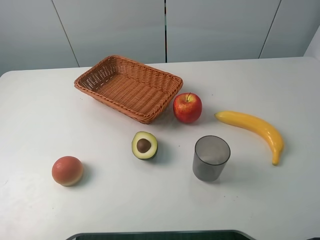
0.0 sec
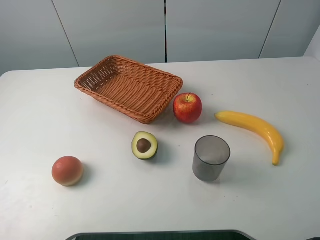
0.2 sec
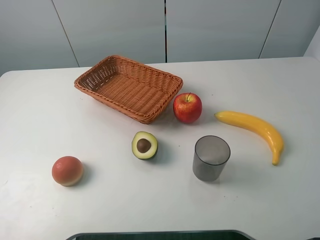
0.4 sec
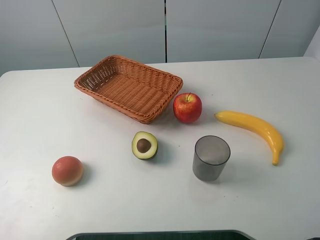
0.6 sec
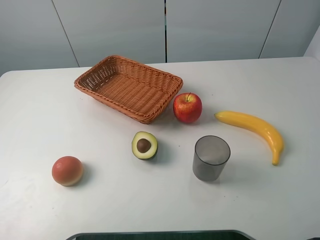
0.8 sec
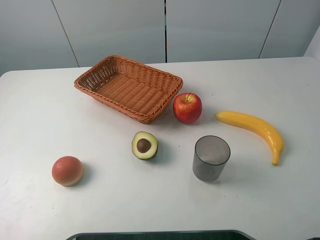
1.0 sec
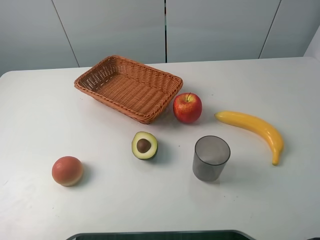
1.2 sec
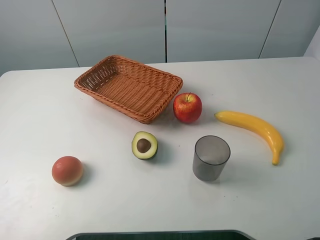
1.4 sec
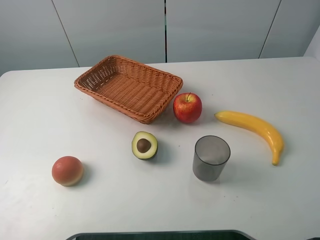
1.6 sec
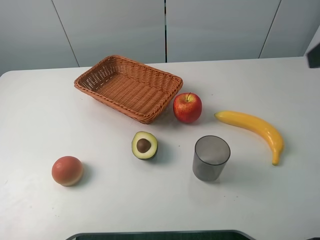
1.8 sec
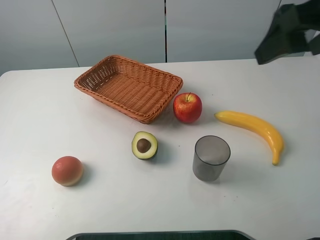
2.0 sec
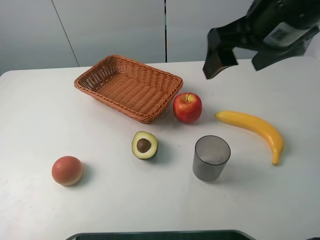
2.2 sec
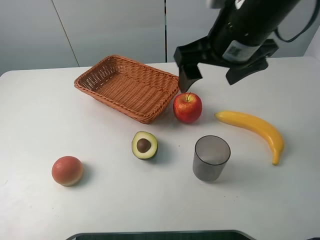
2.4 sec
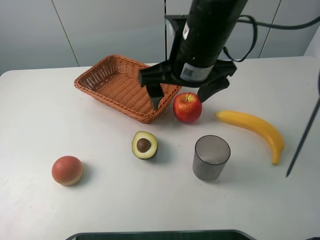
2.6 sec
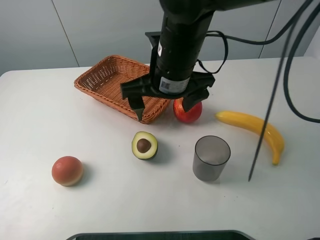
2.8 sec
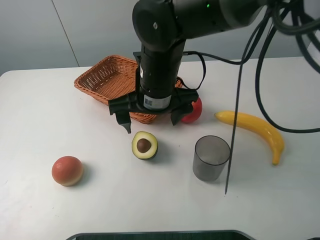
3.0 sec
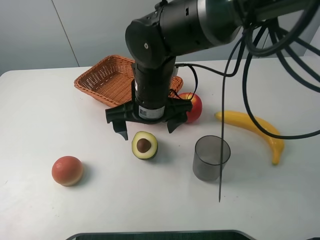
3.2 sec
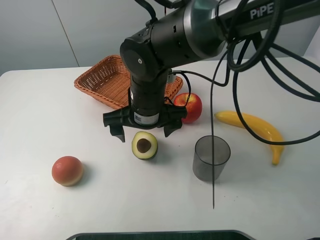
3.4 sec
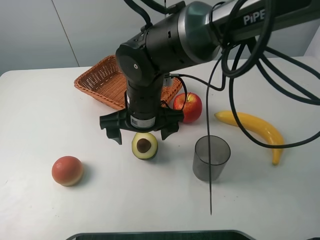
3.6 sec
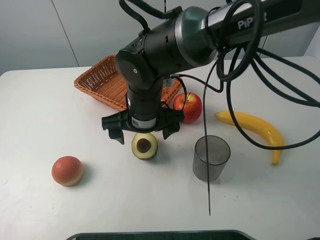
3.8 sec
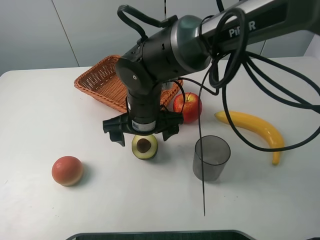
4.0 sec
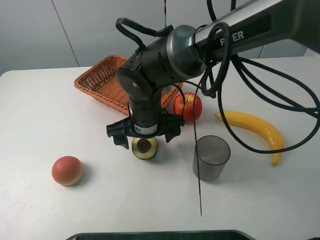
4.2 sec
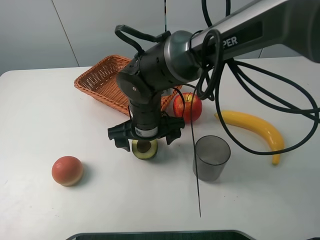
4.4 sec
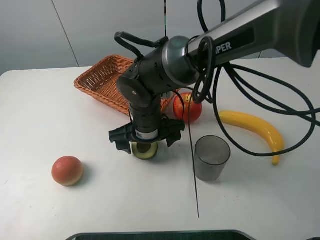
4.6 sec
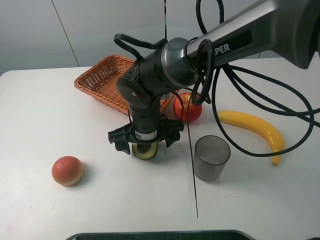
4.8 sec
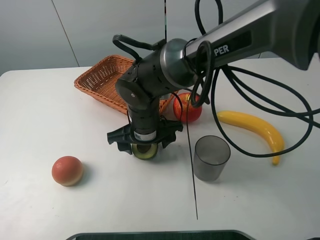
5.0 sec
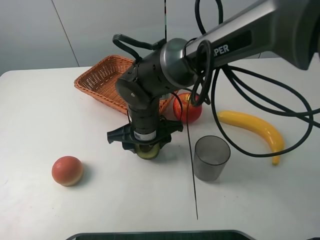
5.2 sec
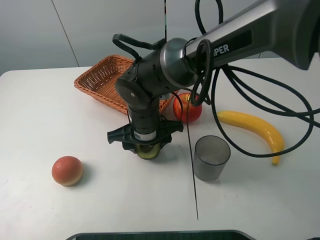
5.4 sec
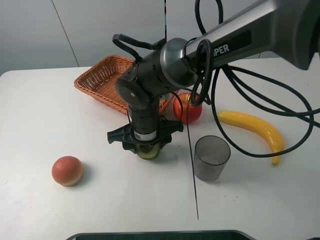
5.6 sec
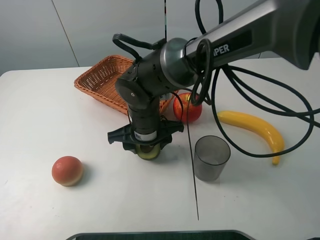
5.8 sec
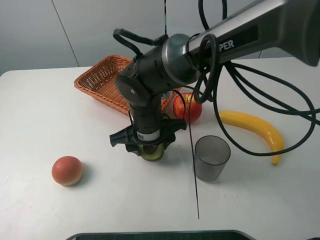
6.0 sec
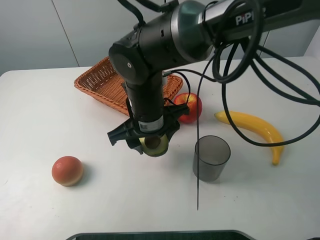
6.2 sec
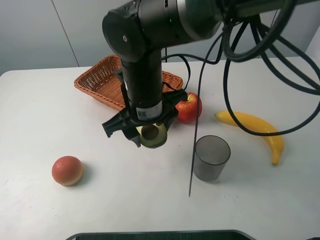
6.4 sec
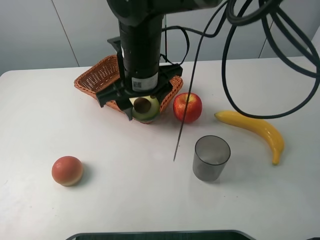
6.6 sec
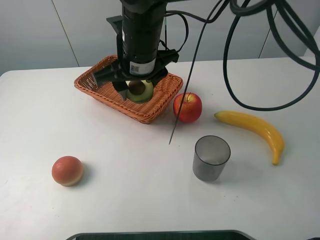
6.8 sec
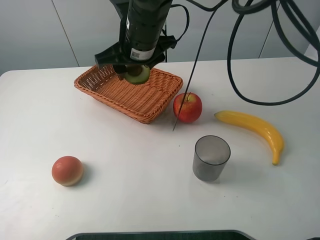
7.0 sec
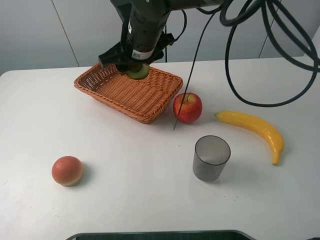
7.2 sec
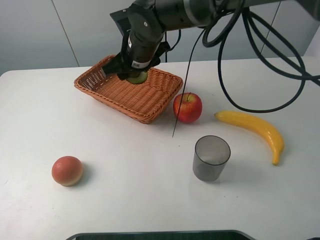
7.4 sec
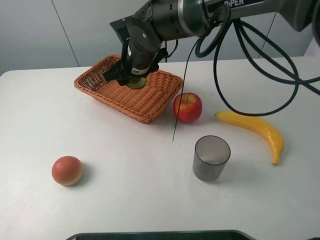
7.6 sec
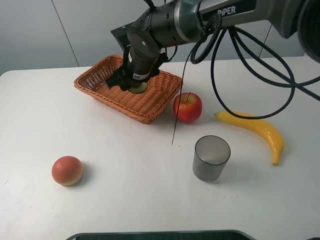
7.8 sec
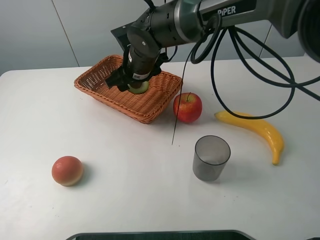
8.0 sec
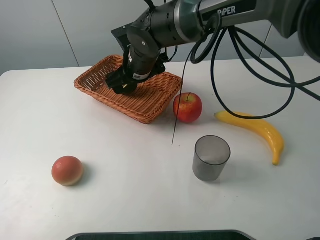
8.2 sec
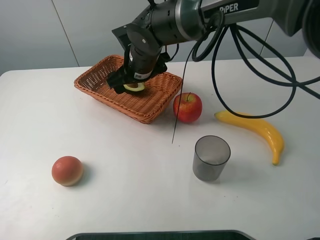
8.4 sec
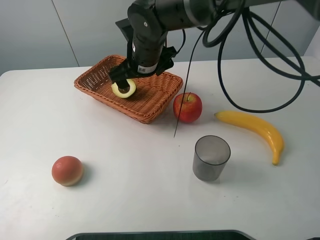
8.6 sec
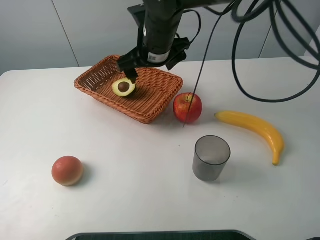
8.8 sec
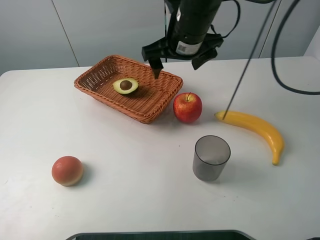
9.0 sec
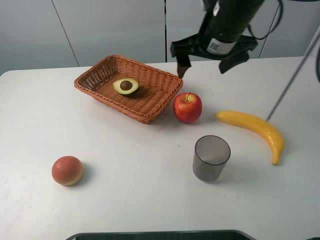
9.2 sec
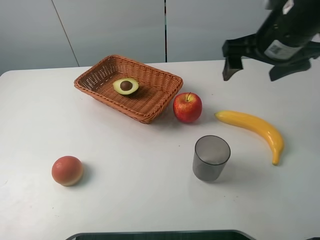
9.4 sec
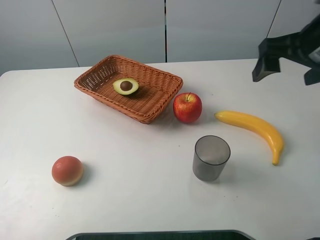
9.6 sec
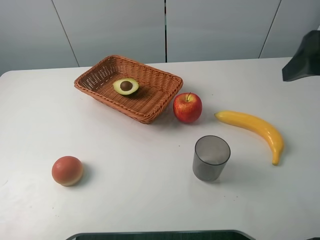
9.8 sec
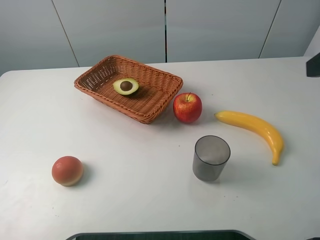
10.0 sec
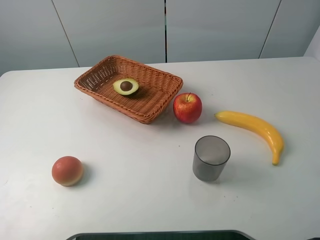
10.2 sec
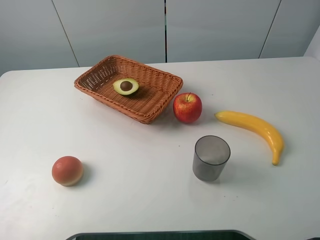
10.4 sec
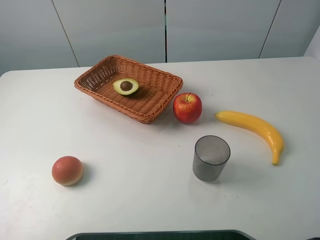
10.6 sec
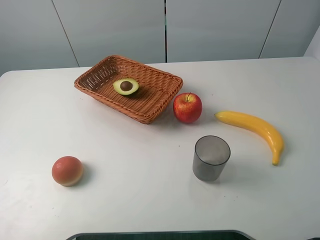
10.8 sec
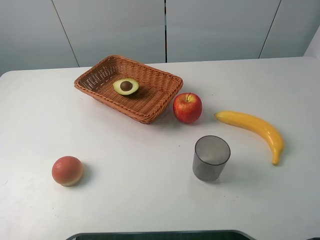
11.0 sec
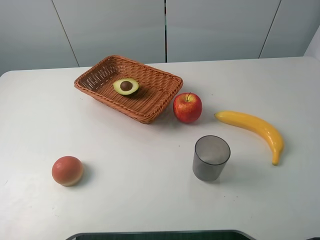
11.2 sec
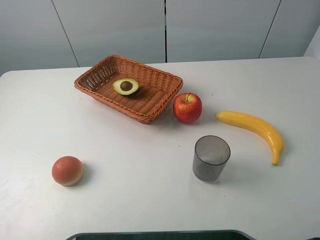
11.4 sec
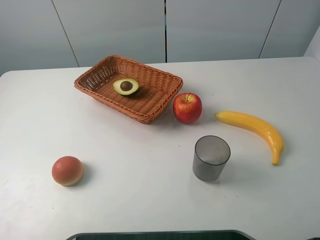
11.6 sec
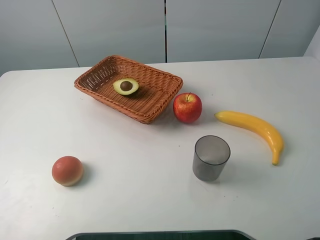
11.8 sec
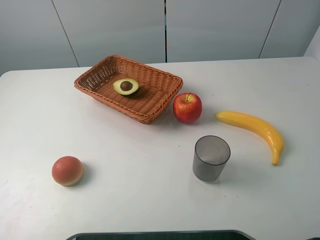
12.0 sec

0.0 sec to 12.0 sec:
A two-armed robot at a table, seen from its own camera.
Task of the whole recording: randomly pick up an item from the table and put it in the basket.
Step, 0.0 sec to 5.4 sec: Grasp the avocado with the right gripper.
Step, 5.6 sec to 8.8 sec: Place the avocado into the basket with the right gripper.
1.6 sec to 3.0 sec: The right gripper goes about 35 cm to the left, downward and forward.
3.0 sec to 4.4 sec: The right gripper travels downward by some 10 cm.
4.4 sec to 6.0 sec: The right gripper closes.
6.0 sec to 7.6 sec: The right gripper moves forward and upward, about 15 cm.
7.6 sec to 9.0 sec: The right gripper is displaced to the right and upward by approximately 15 cm, and opens.
9.0 sec to 10.4 sec: The right gripper travels backward and to the right by about 35 cm.

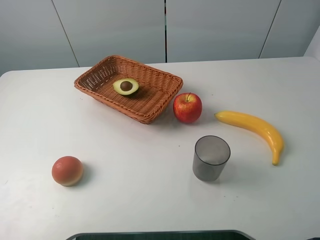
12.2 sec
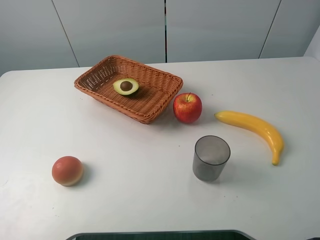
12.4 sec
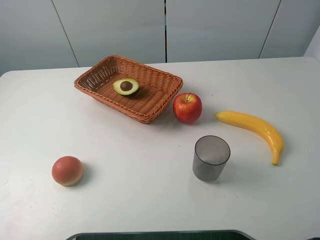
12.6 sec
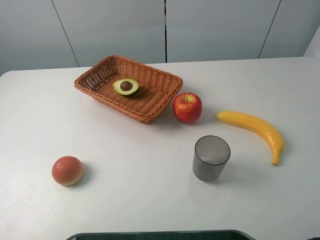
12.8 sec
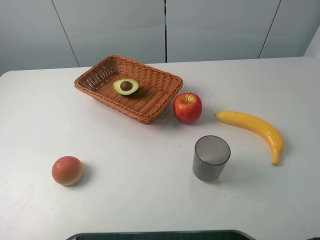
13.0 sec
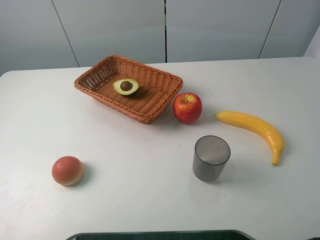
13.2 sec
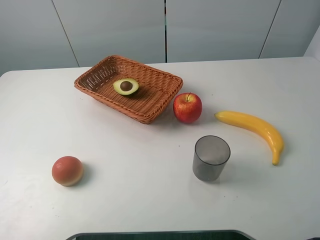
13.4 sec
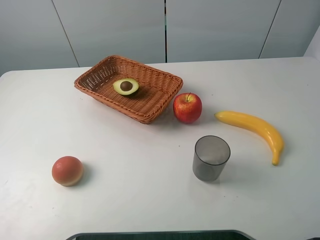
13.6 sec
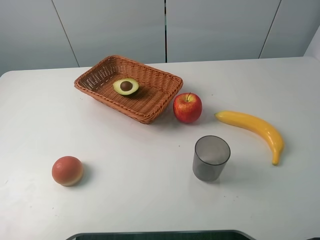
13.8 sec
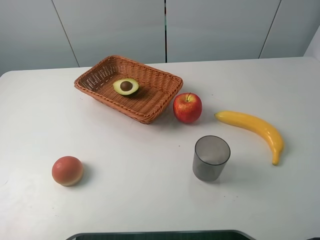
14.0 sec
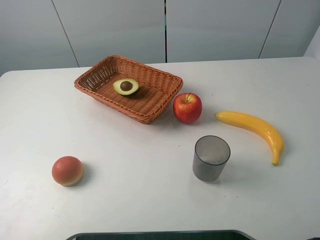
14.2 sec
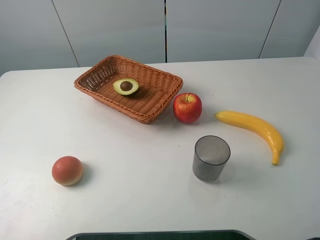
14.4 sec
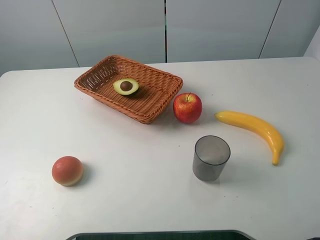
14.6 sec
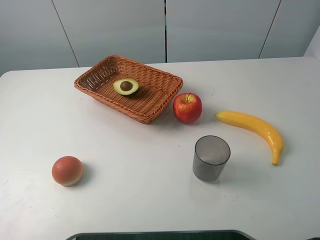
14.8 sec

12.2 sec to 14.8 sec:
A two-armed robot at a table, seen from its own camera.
Task of the whole recording: randomly pick up an item from the table and put it in the basket.
13.4 sec to 14.8 sec: The two grippers keep their place.
